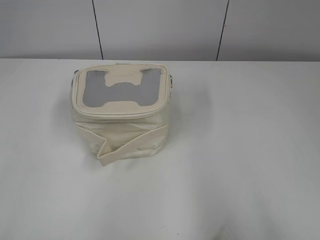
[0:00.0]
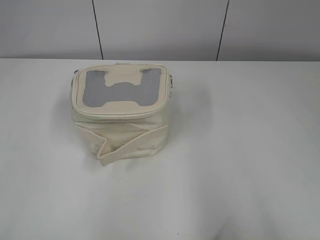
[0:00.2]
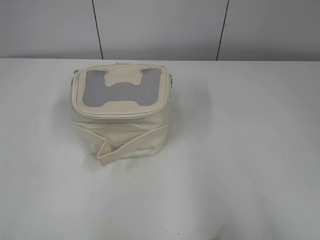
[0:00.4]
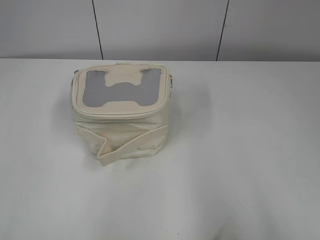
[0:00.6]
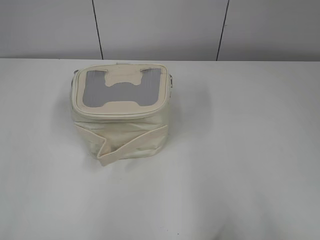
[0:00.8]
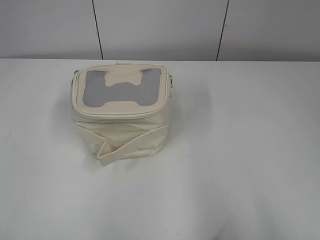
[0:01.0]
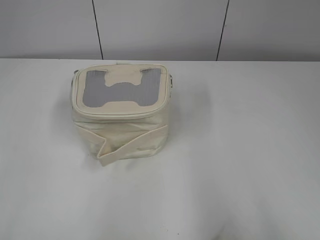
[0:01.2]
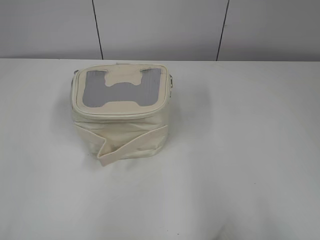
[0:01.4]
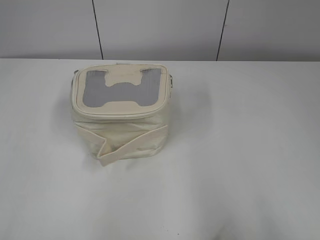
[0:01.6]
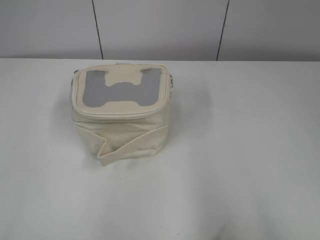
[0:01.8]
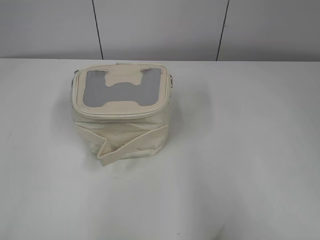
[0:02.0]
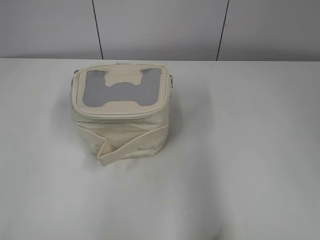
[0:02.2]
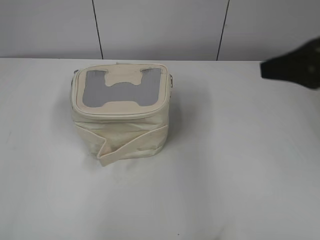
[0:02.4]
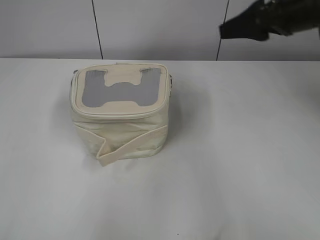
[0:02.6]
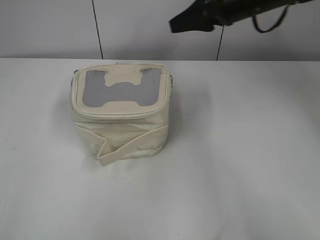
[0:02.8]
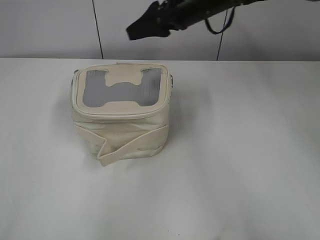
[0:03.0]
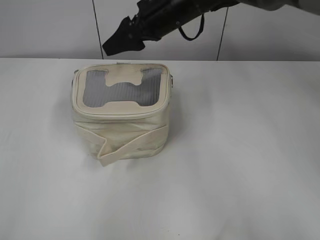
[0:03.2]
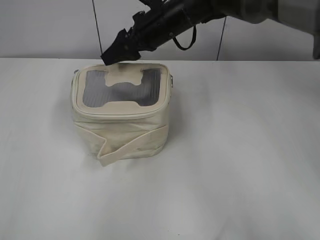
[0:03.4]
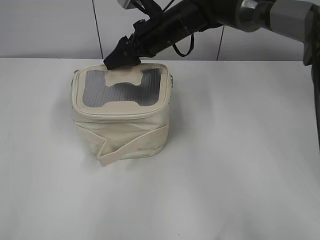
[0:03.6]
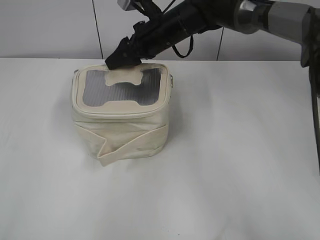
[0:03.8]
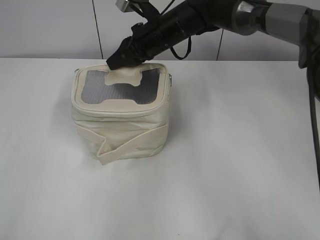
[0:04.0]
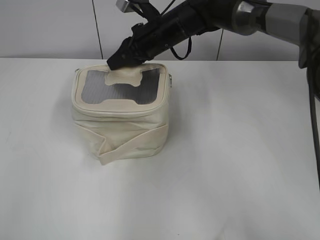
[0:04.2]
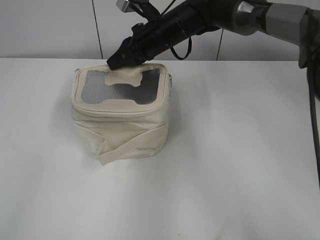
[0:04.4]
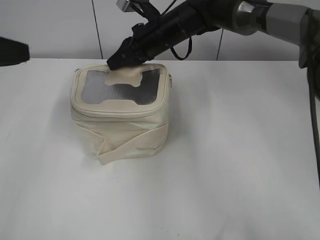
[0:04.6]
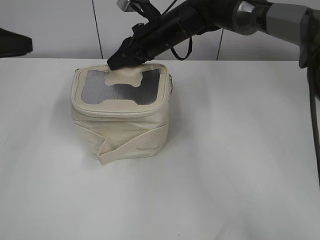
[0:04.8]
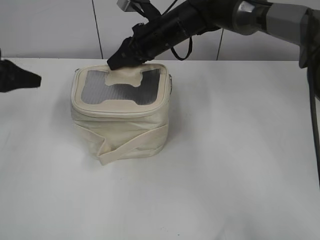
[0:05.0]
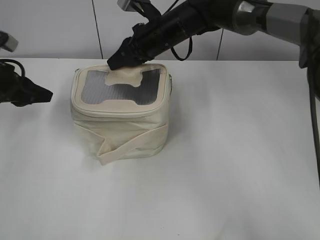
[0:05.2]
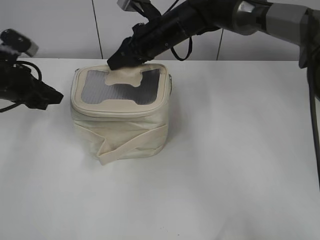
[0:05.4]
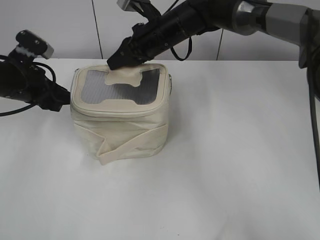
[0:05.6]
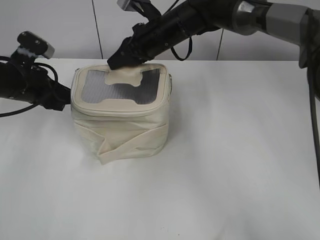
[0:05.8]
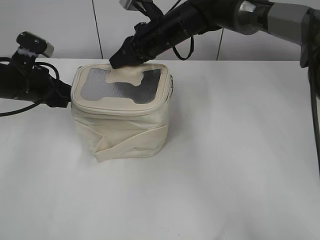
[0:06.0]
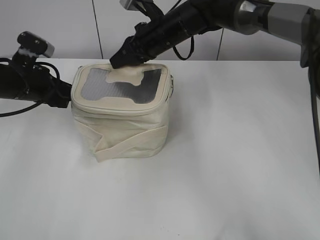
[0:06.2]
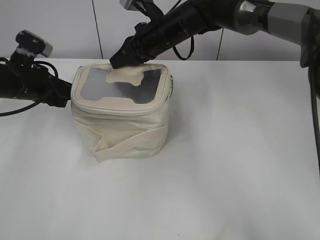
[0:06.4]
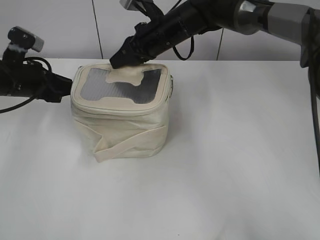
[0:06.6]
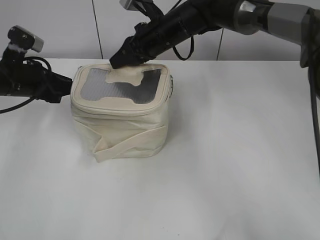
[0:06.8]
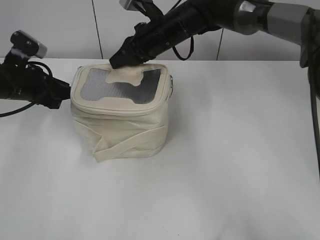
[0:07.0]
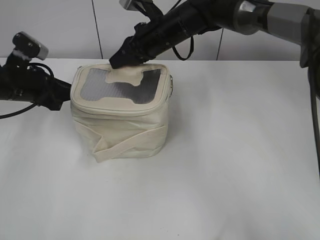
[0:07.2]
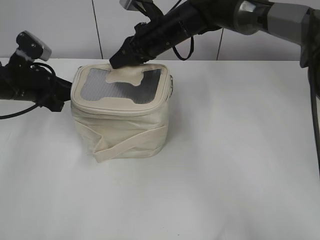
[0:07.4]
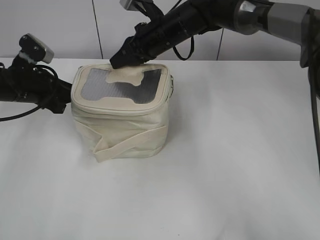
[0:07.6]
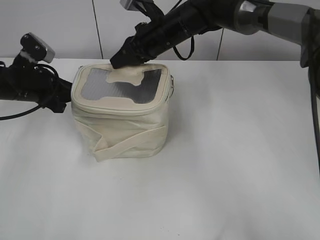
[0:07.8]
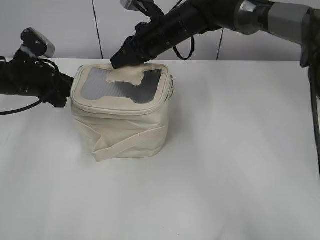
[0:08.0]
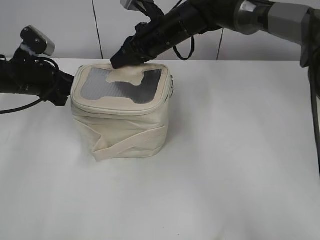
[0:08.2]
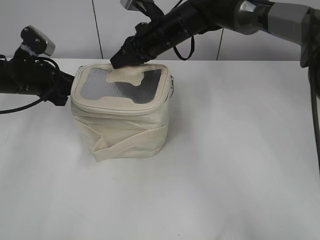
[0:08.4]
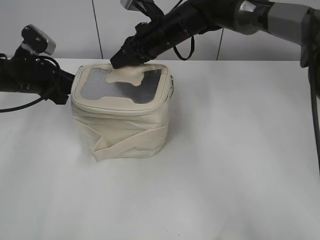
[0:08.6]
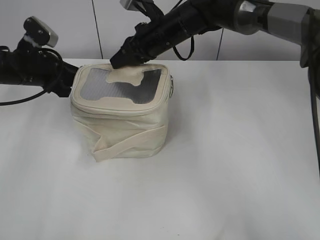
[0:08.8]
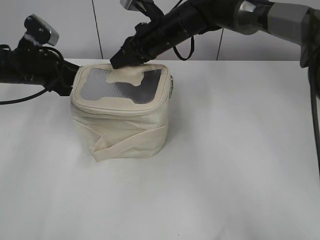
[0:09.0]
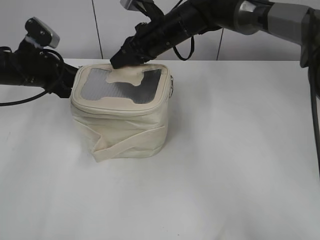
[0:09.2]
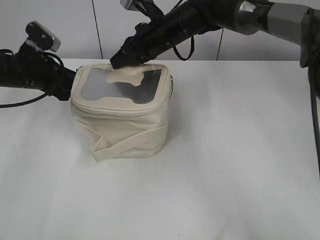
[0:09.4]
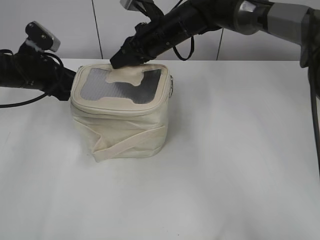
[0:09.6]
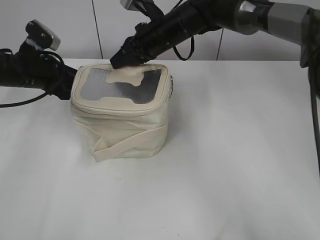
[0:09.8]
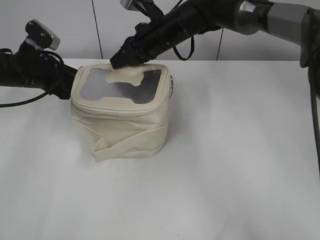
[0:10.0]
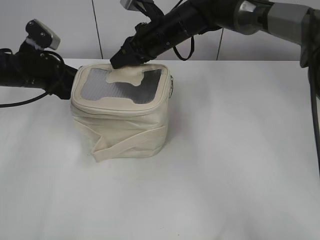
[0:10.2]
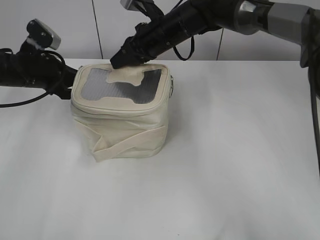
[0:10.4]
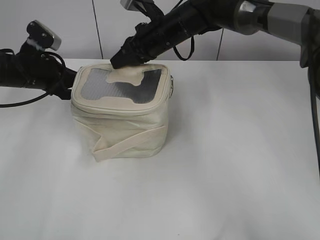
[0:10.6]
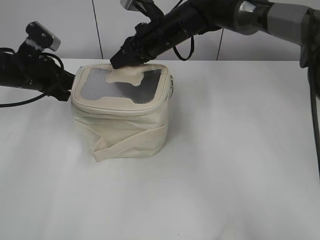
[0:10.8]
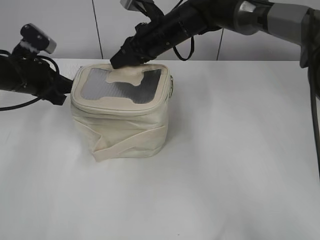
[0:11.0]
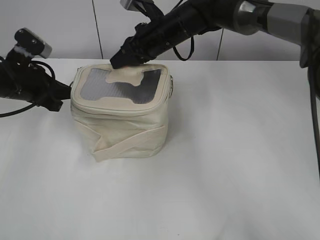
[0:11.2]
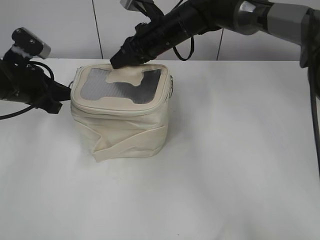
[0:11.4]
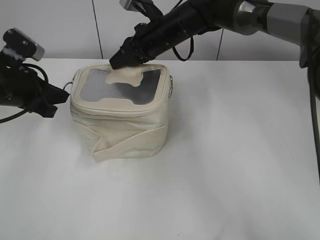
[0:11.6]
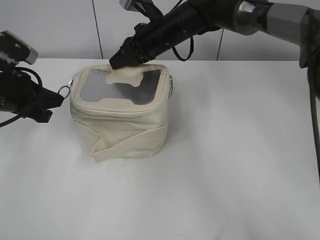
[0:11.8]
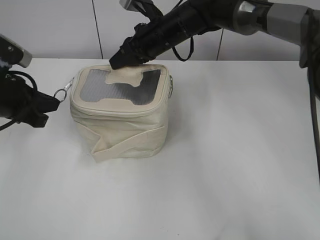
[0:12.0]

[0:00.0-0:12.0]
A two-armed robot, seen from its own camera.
0:01.6 to 0:03.0: The right gripper goes about 50 cm forward and to the left.
0:03.0 to 0:04.4: The left gripper goes some 15 cm forward, while the right gripper is displaced downward and to the left by some 10 cm, and closes up.
0:04.4 to 0:06.0: The left gripper is displaced forward and downward by roughly 30 cm.
0:06.0 to 0:09.0: There are only small adjustments of the grippers.
0:09.0 to 0:10.4: The left gripper closes its fingers.
0:10.4 to 0:12.0: The left gripper is displaced backward by about 10 cm.

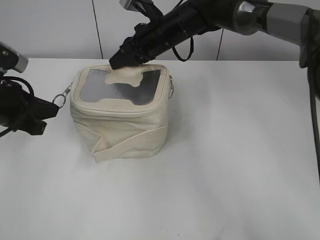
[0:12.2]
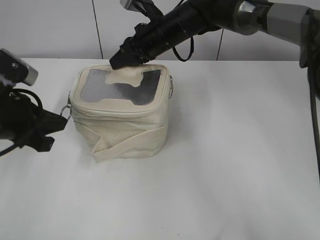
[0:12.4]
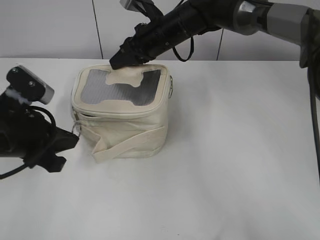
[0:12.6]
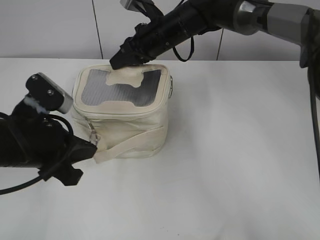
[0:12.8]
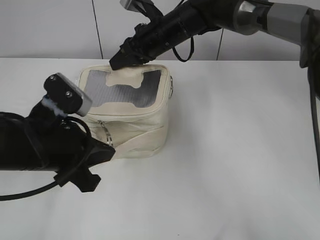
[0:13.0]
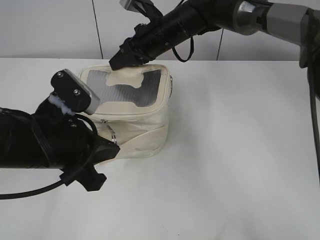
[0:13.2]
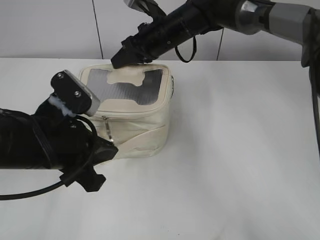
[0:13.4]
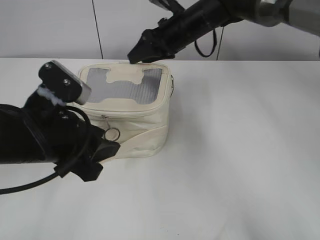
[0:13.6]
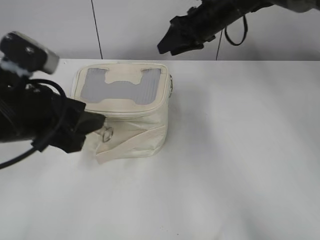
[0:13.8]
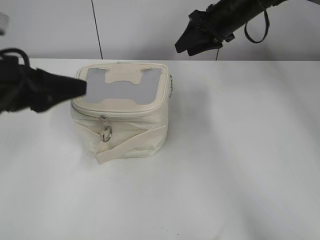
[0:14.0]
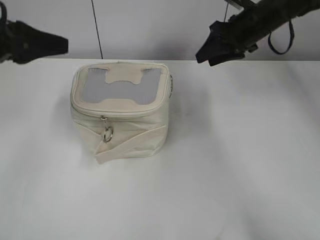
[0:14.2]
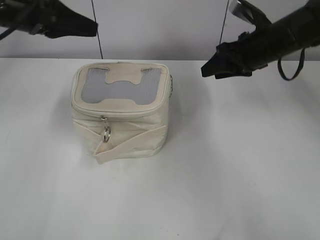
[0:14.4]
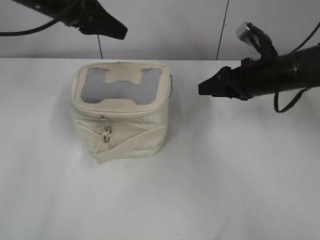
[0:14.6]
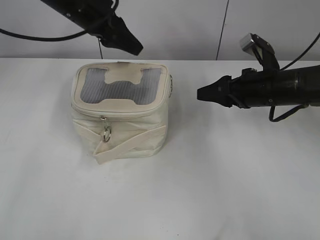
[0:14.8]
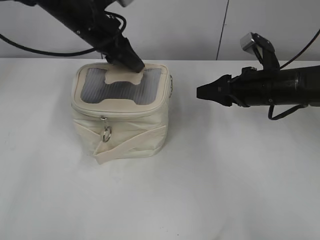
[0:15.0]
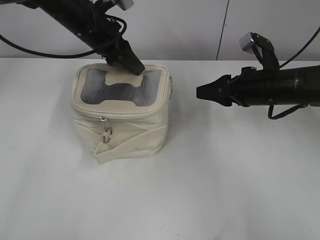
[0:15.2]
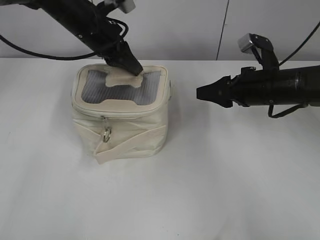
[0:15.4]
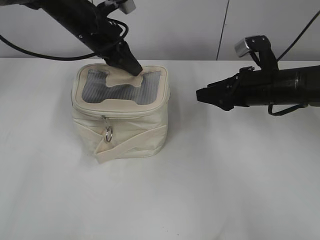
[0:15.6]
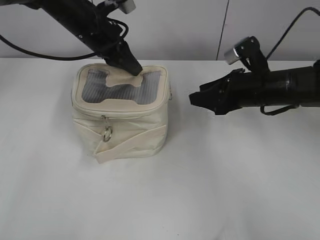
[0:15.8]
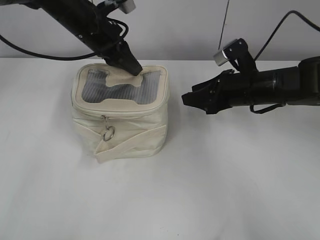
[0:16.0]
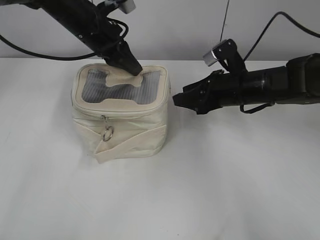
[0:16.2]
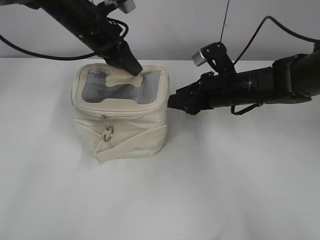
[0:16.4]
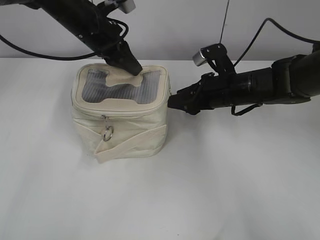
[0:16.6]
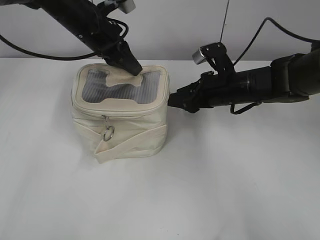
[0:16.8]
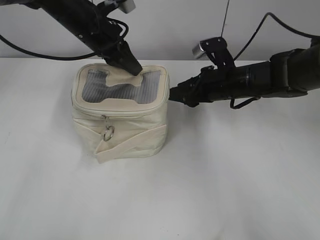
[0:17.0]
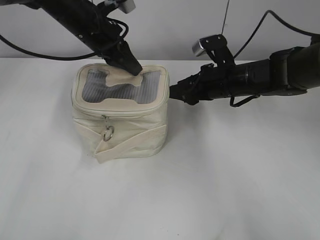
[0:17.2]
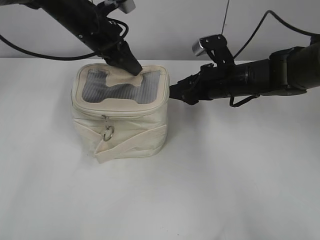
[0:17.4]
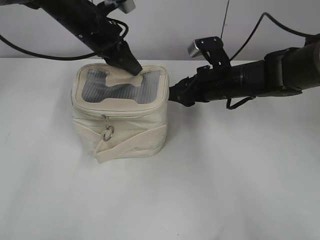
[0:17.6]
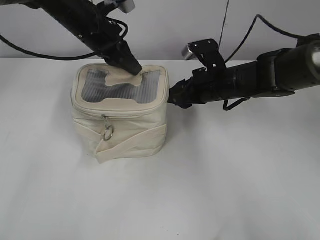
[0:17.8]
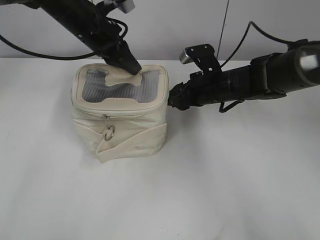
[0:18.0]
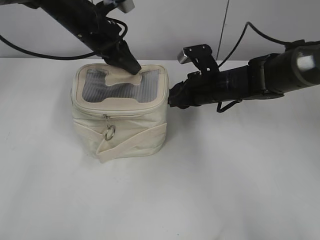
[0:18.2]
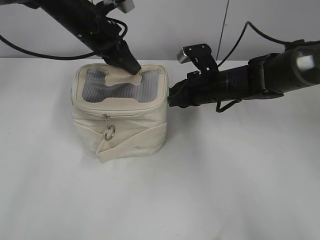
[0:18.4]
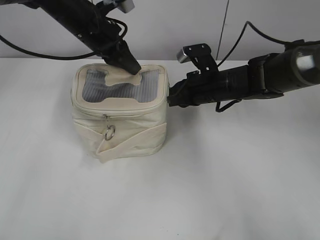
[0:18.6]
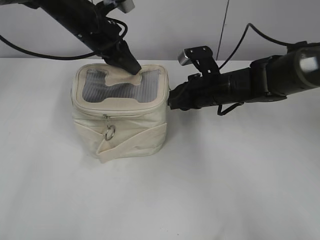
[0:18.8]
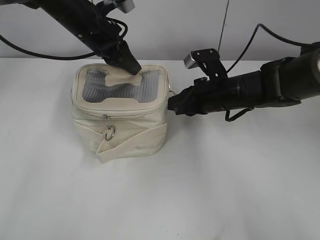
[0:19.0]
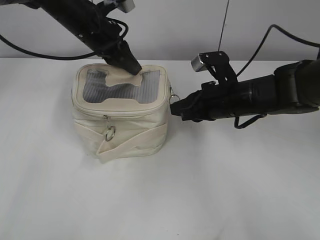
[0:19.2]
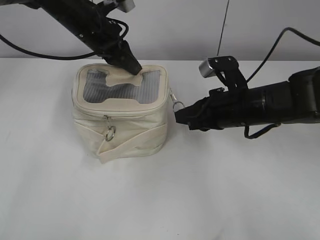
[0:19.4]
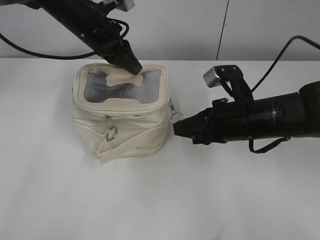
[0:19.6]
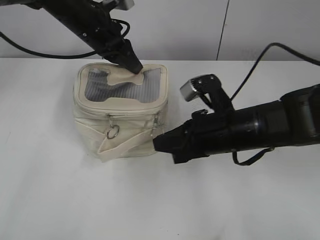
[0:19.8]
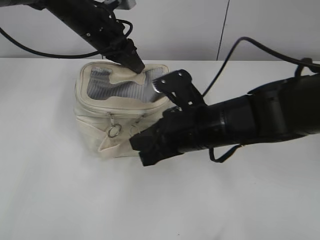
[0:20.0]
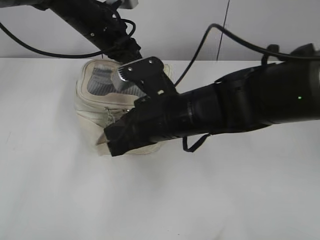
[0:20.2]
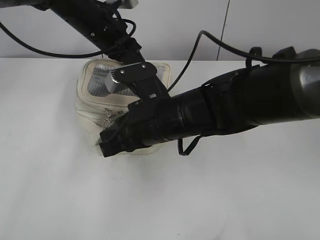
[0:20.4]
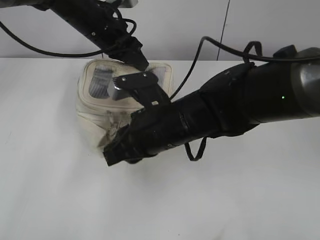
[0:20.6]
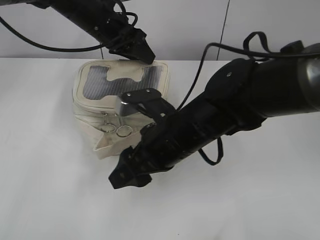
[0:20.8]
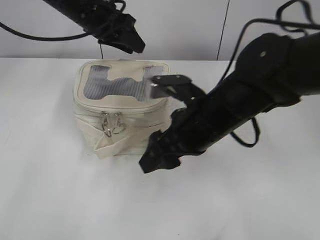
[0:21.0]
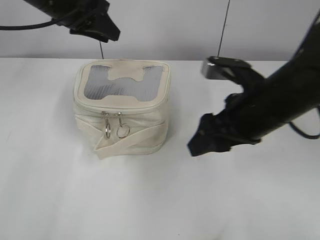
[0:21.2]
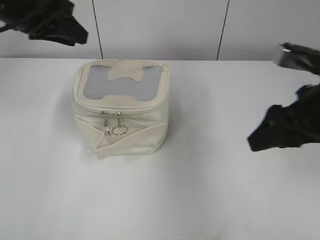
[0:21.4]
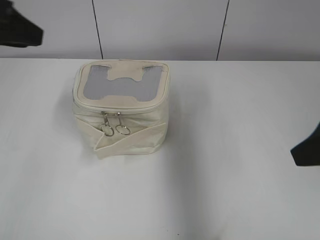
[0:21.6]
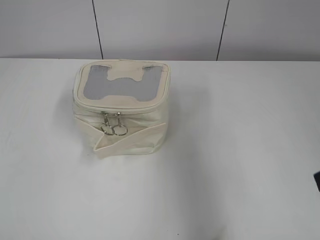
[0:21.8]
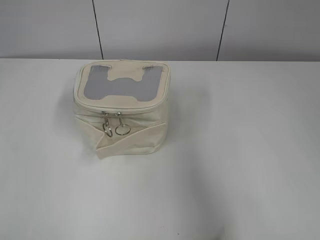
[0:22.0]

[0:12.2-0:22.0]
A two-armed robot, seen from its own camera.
Step, 0:13.8 to 0:20.6: Zip up the bag with your right hand.
0:12.2 to 0:13.6: The left gripper is displaced to the right and backward by some 10 cm, and opens its fingers; the right gripper opens its fingers.
0:13.6 to 0:15.0: The right gripper goes approximately 20 cm to the right and backward. The left gripper goes about 25 cm forward.
0:15.0 to 0:16.4: The left gripper closes. The right gripper is displaced to the left by some 5 cm.
0:16.4 to 0:17.8: The grippers move only a little.
0:17.8 to 0:19.2: The right gripper closes.
0:19.2 to 0:20.6: The right gripper travels to the left and backward by roughly 15 cm.
0:20.6 to 0:22.0: The left gripper moves backward and to the left, about 40 cm, and opens its fingers. Meanwhile the right gripper goes some 30 cm to the right, backward and upward, and opens its fingers.
